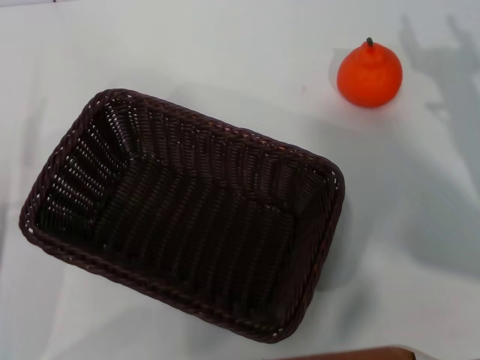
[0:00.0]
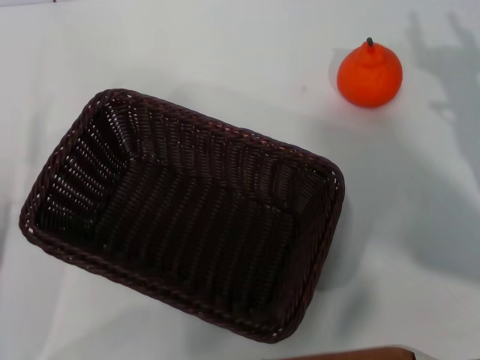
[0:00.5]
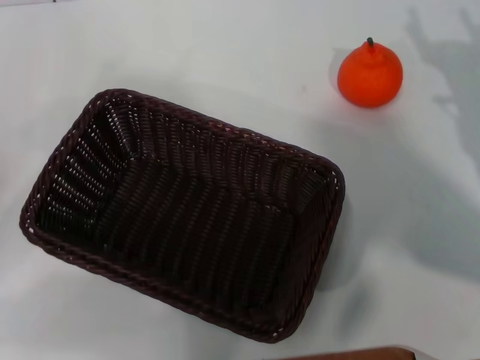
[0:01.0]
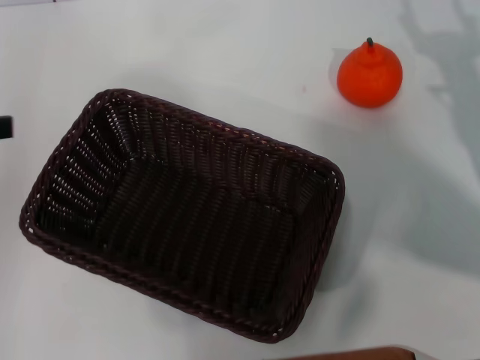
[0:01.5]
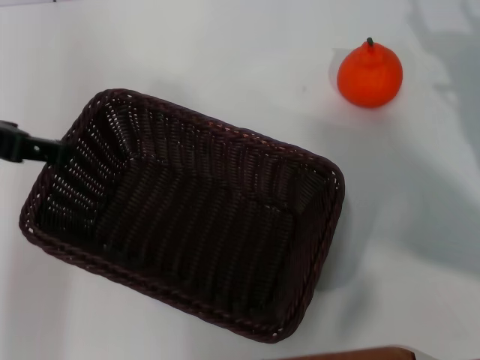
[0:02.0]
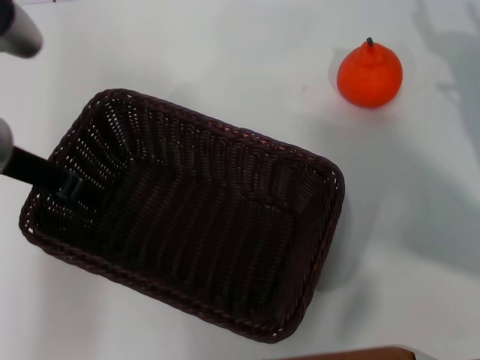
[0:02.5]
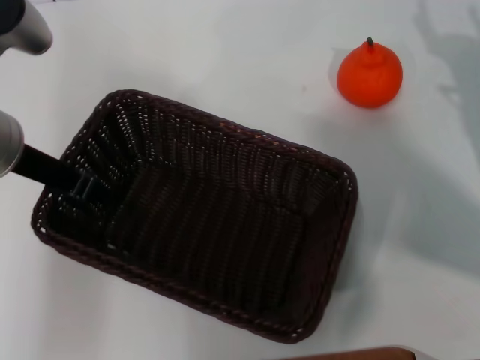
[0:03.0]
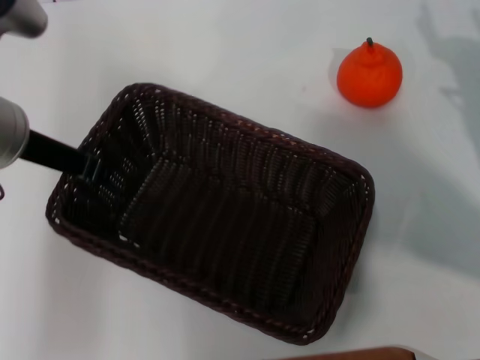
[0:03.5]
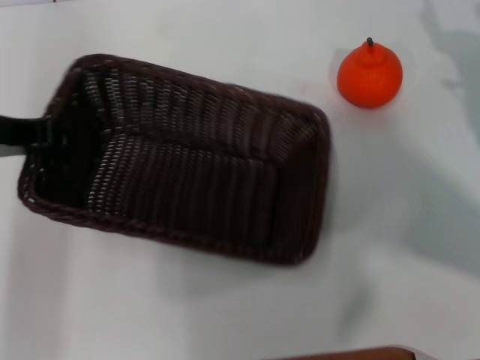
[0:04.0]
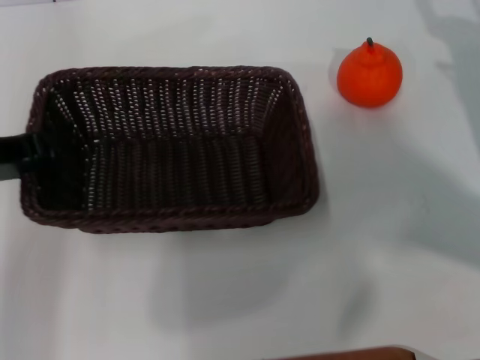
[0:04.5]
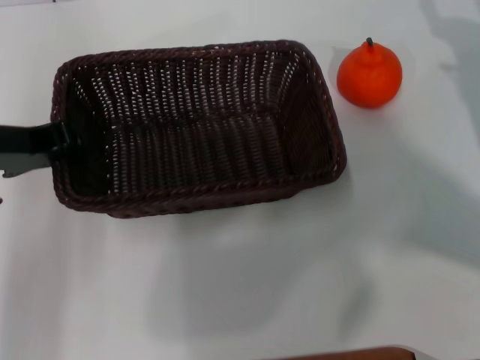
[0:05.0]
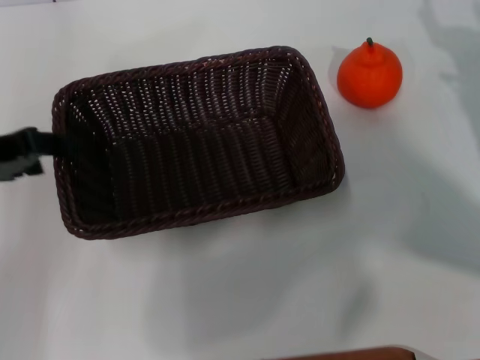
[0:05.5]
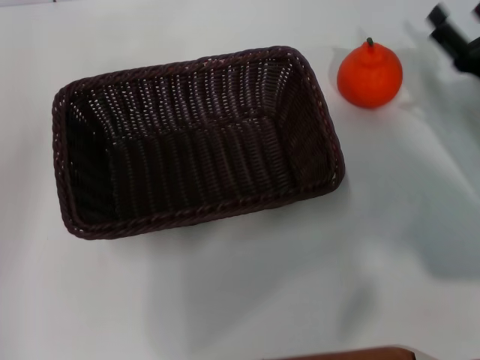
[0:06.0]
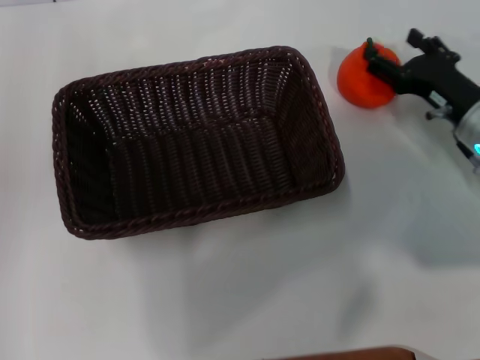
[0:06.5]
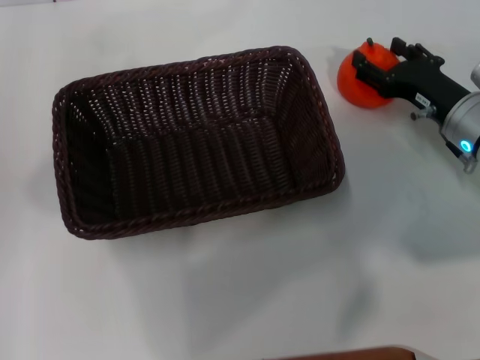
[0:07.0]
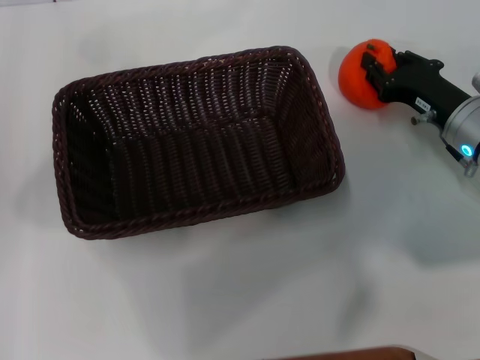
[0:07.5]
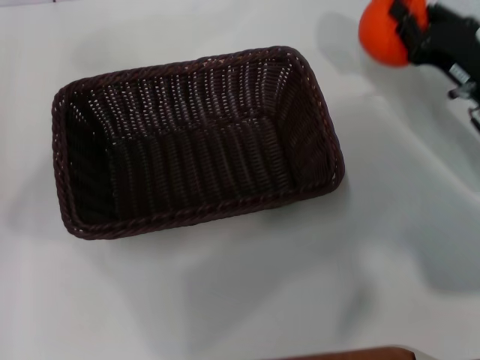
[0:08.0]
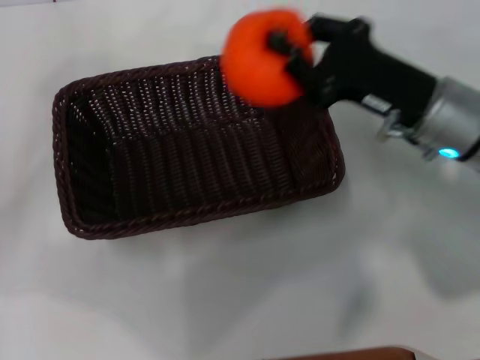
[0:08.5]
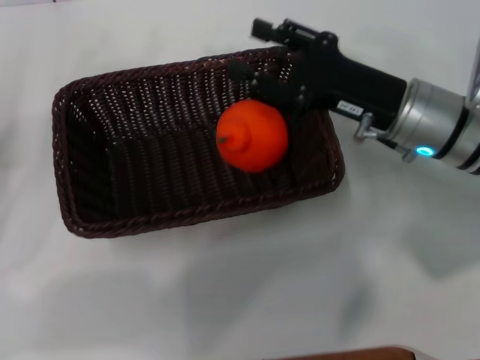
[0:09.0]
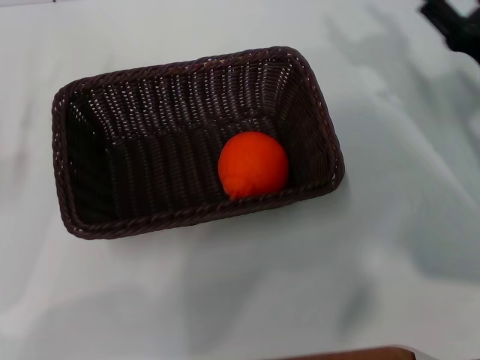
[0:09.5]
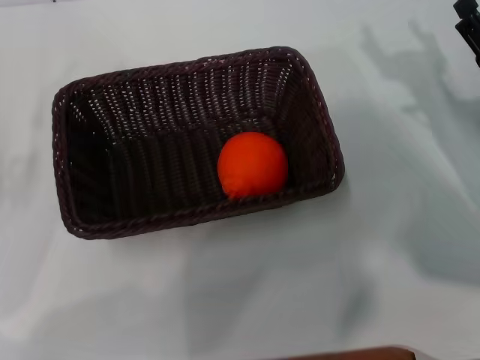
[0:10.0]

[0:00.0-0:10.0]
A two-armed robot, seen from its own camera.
Task of the whole recording: the left gripper pick up the black basket and place it horizontally in the middle of the table, the right gripper pick up the orange and place it into the black basket.
Step, 0:00.0 to 0:03.5: Pick up the dark basket with the left gripper.
Step, 0:04.0 to 0:05.5: Place the dark basket in the center of view with the left gripper.
Step, 0:06.0 to 0:07.5: Pick up the orange with the right gripper.
Step, 0:08.0 to 0:09.0: Place the orange into the dark basket with the right gripper.
0:00.0 to 0:02.0: The left gripper is displaced upward and forward by roughly 25 cm. The right gripper closes, then reopens.
0:02.0 to 0:04.0: The left gripper closes.
0:04.0 to 0:06.0: The left gripper travels to the left by roughly 5 cm, and opens.
0:06.0 to 0:08.0: The right gripper closes up.
0:08.0 to 0:10.0: The left gripper moves downward and backward, some 15 cm; the right gripper travels to the left and back again, roughly 10 cm each way, and opens.

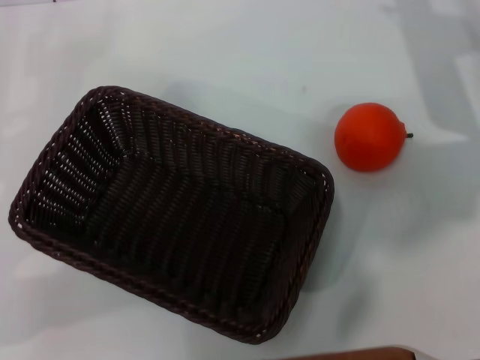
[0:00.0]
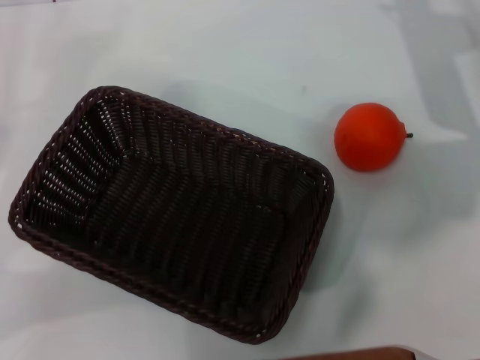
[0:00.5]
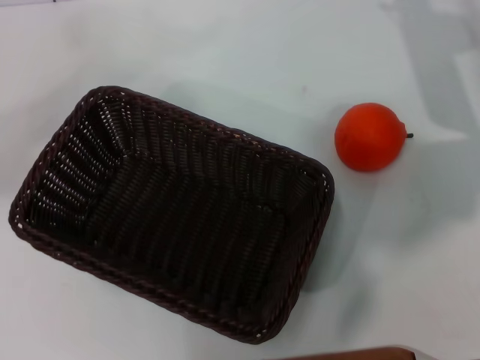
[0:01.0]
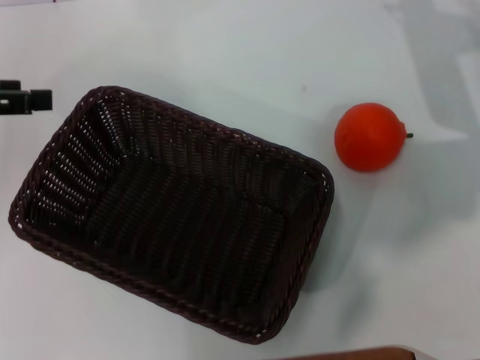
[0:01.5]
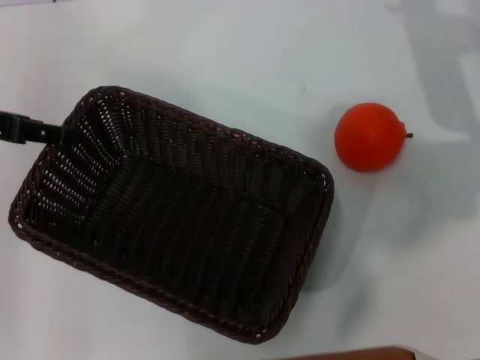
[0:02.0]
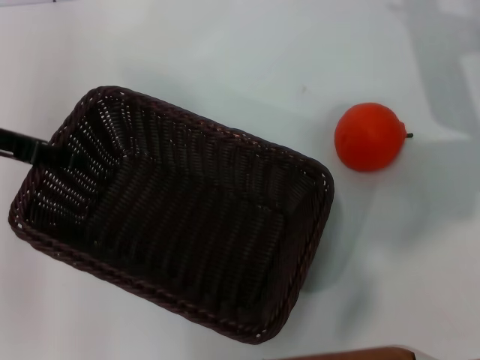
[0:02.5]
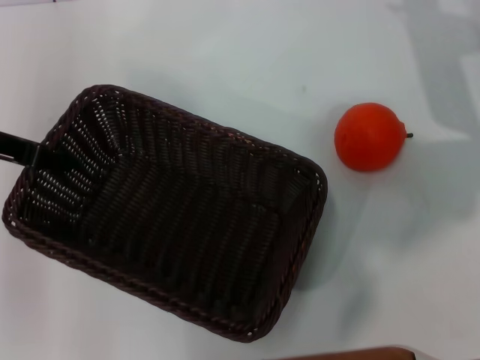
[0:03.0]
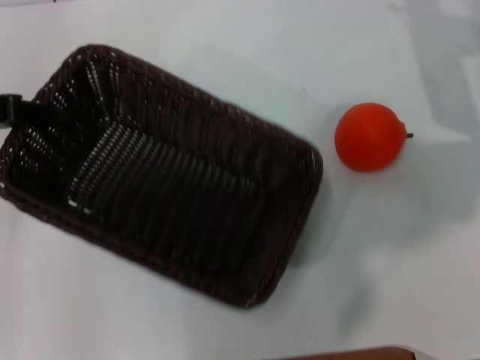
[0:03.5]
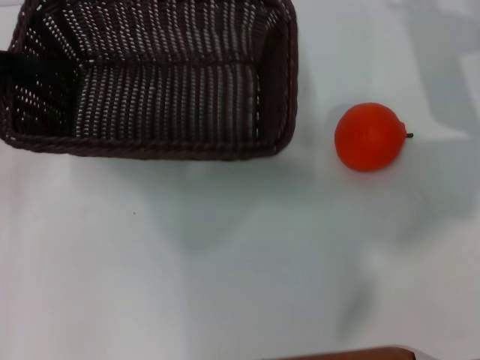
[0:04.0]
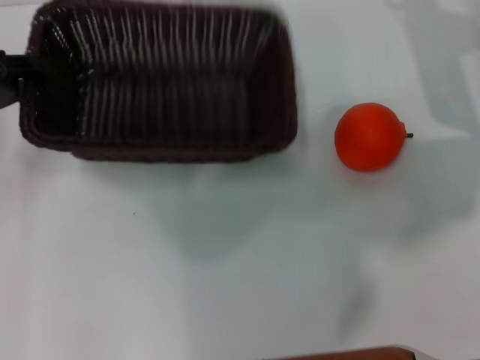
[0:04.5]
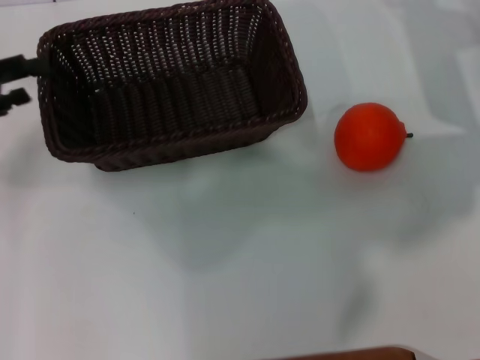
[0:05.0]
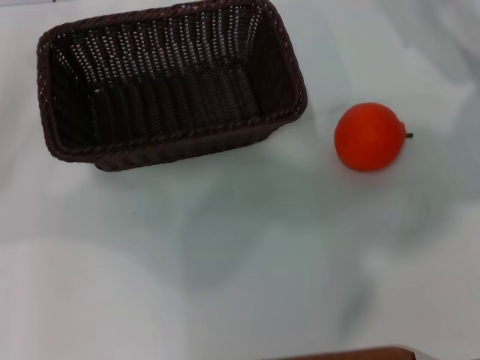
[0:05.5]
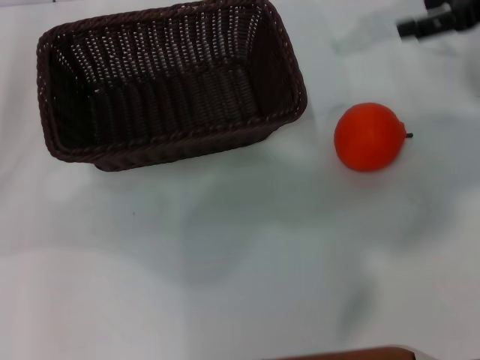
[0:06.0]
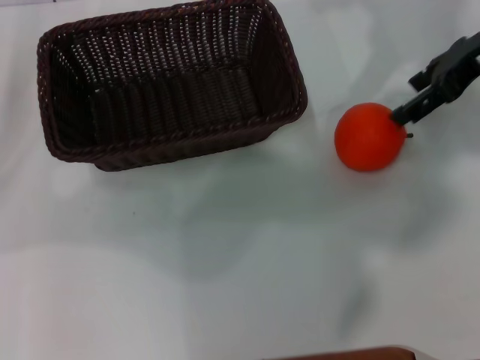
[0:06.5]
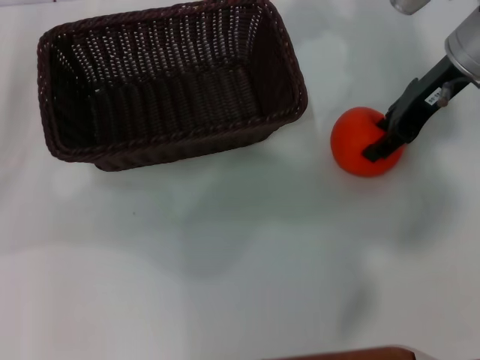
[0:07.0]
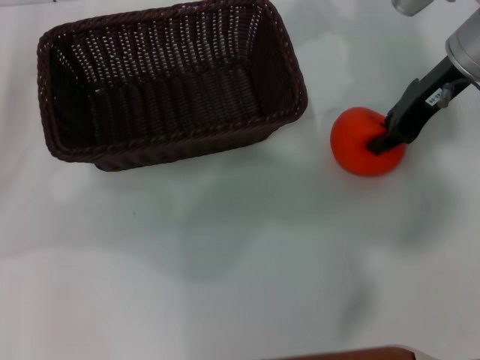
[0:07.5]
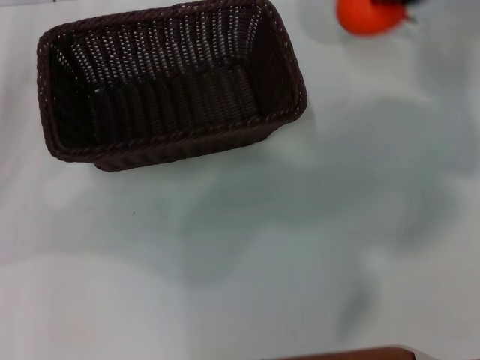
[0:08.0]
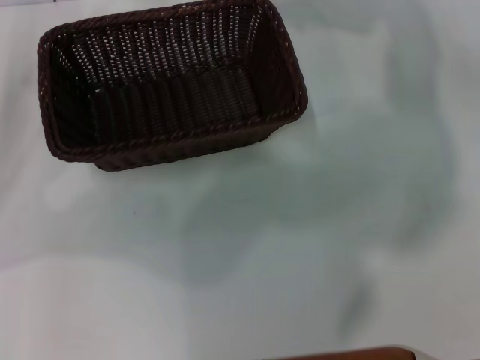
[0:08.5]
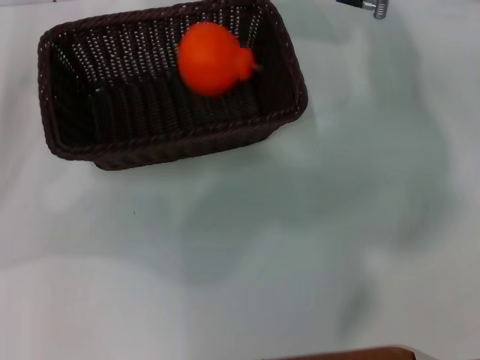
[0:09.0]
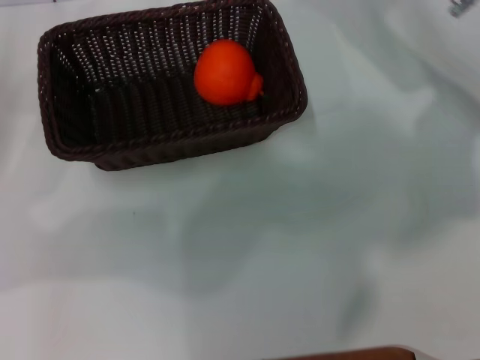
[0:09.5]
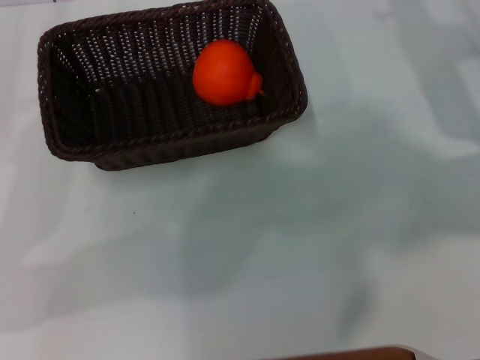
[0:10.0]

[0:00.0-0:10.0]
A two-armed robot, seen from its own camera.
Task of the whole recording: the left gripper pick up the black basket and place it horizontally in the middle of the table, the right gripper pick up the orange and place it into the black basket.
Step, 0:00.0 to 0:03.5: Pick up the dark basket with the left gripper.
Step, 0:04.0 to 0:05.0: Place the dark basket in the center of view with the left gripper.
Step, 0:05.5 to 0:07.5: Pick up the orange with the right gripper.
Step, 0:08.0 to 0:09.0: Place the orange into the dark basket with the right gripper.
0:00.0 to 0:02.0: The left gripper is displaced upward, forward and to the right by about 15 cm.
0:02.0 to 0:04.0: The left gripper closes its fingers.
0:04.0 to 0:06.0: The right gripper heads upward, covering about 10 cm, while the left gripper opens up.
0:06.0 to 0:08.0: The right gripper closes.
0:08.0 to 0:10.0: The right gripper heads downward and backward, covering approximately 10 cm, reaches roughly 15 cm to the left, then returns, and opens. Meanwhile the left gripper moves about 5 cm.
